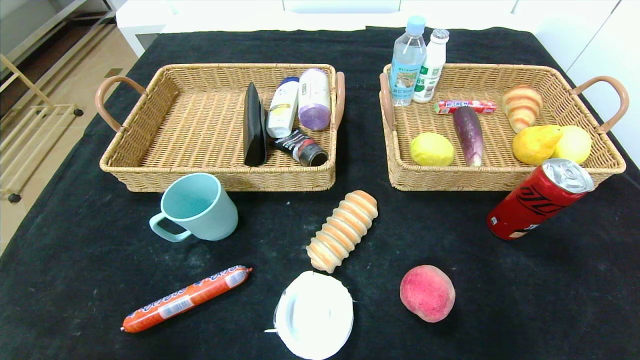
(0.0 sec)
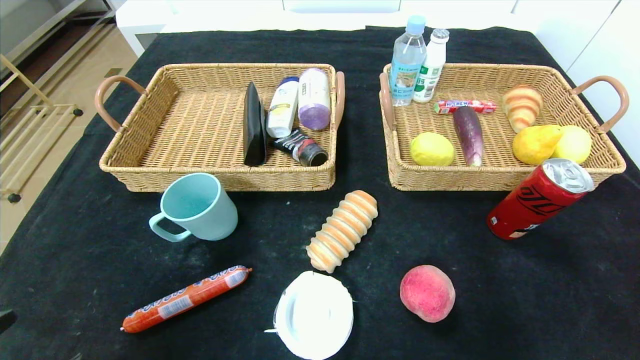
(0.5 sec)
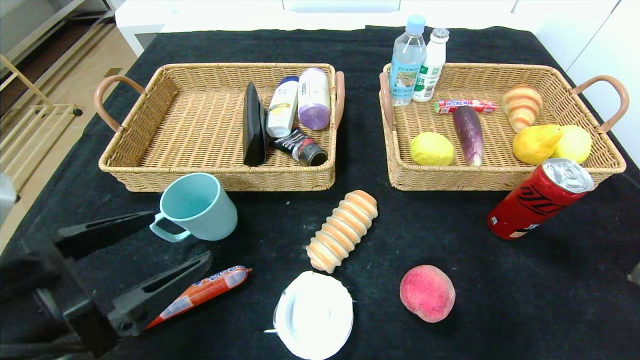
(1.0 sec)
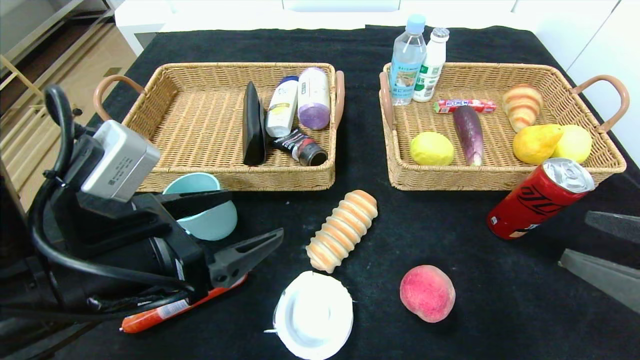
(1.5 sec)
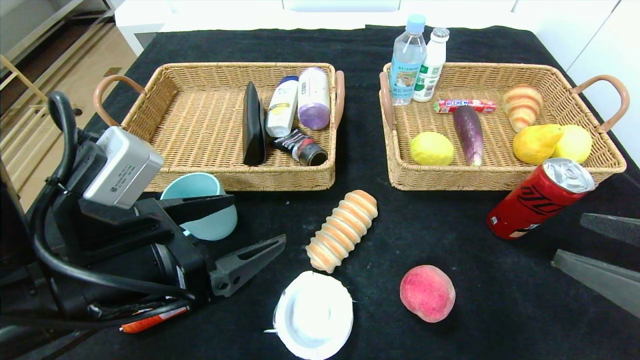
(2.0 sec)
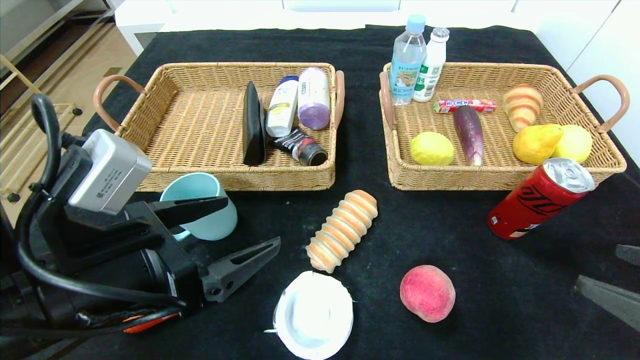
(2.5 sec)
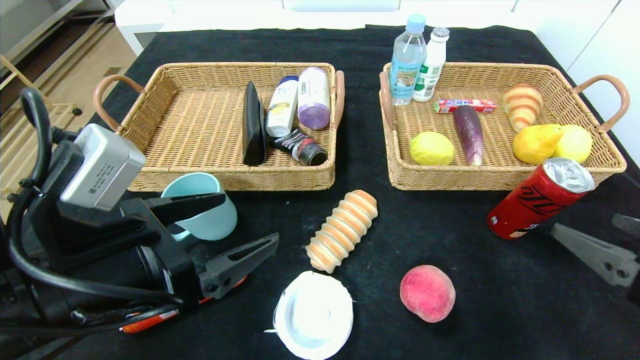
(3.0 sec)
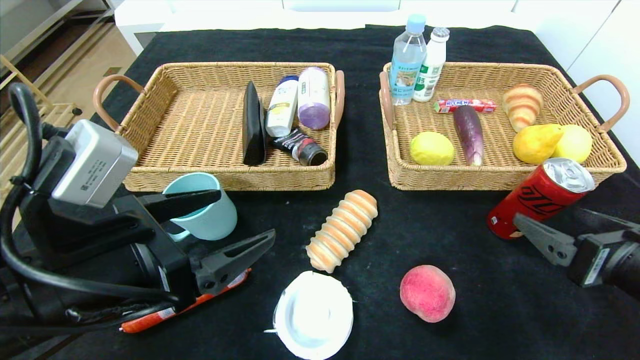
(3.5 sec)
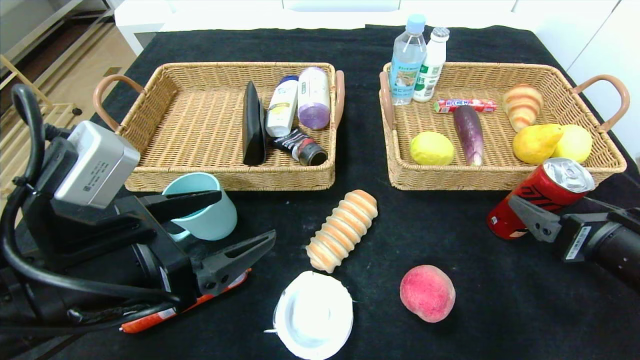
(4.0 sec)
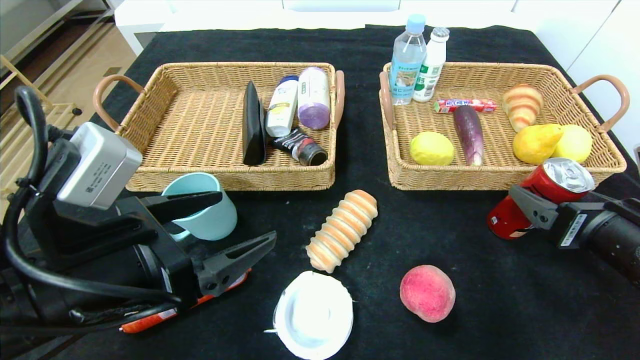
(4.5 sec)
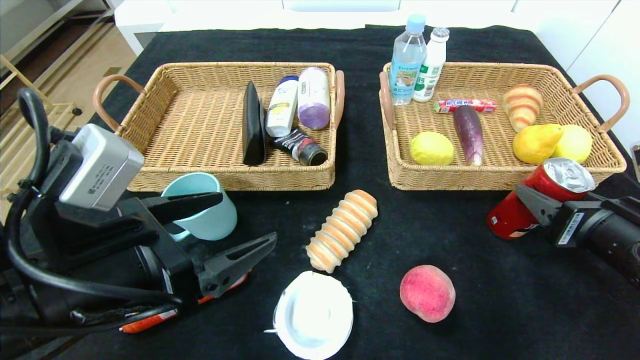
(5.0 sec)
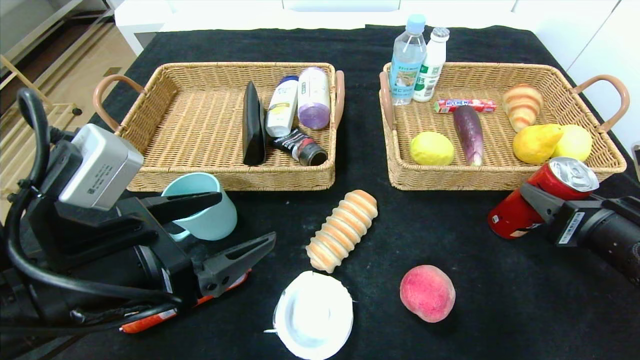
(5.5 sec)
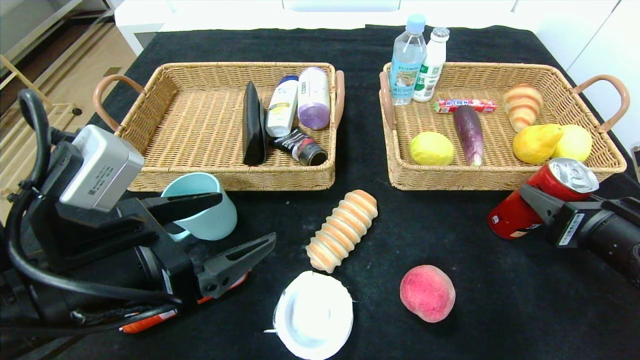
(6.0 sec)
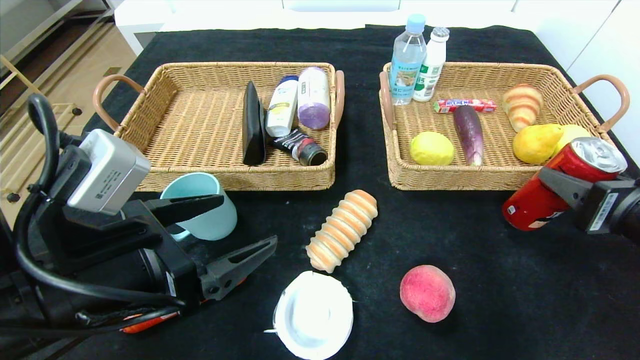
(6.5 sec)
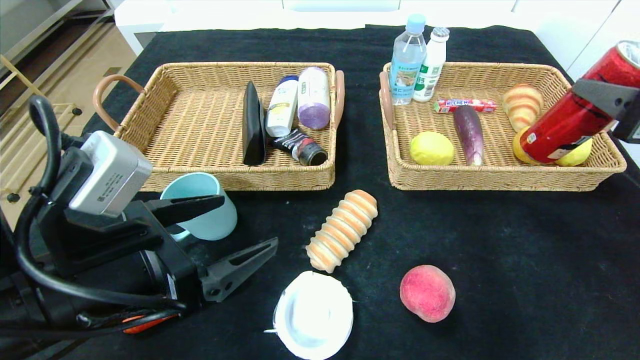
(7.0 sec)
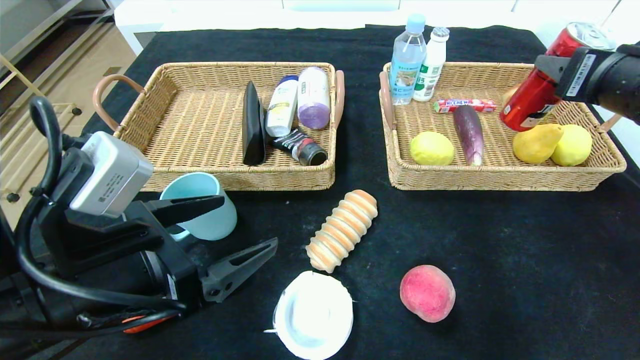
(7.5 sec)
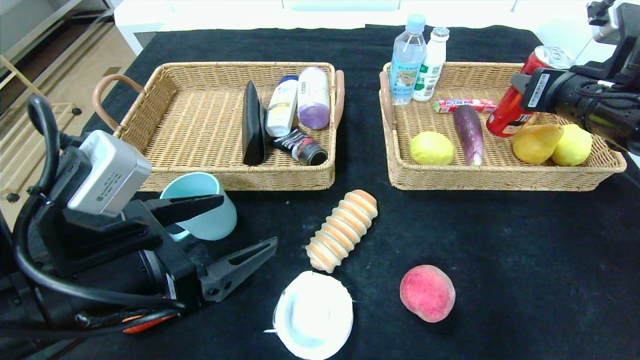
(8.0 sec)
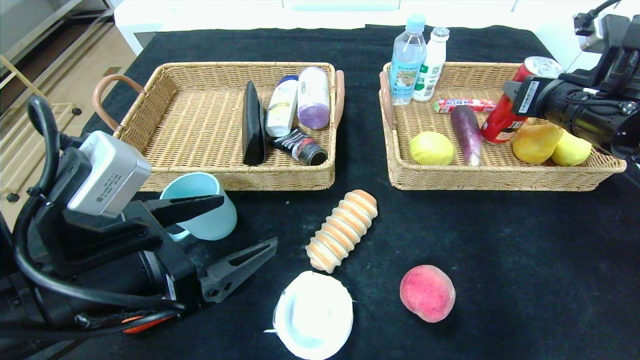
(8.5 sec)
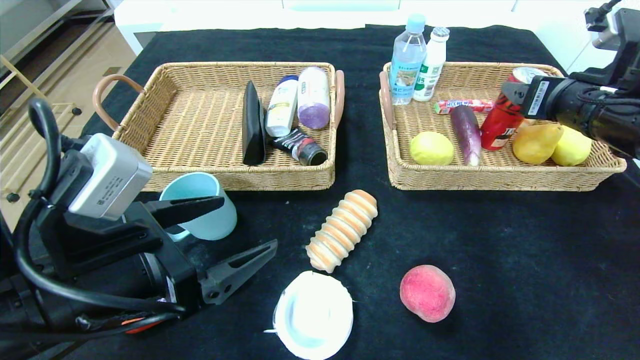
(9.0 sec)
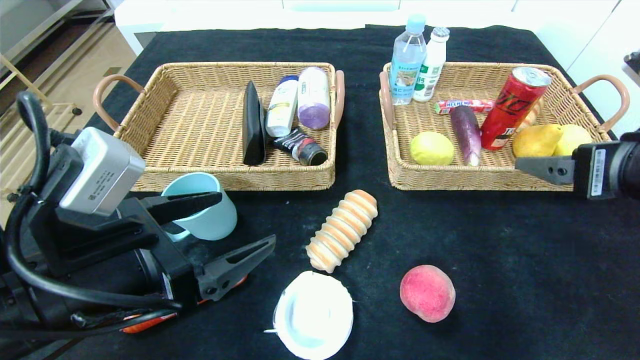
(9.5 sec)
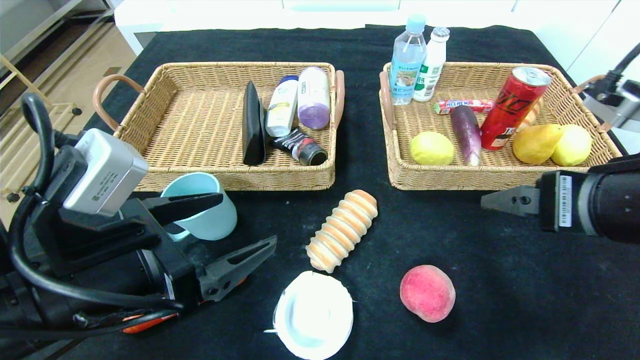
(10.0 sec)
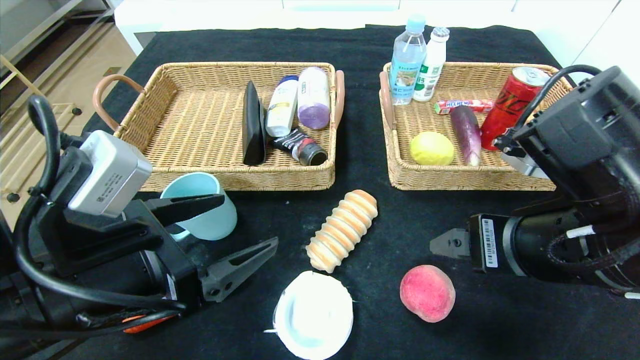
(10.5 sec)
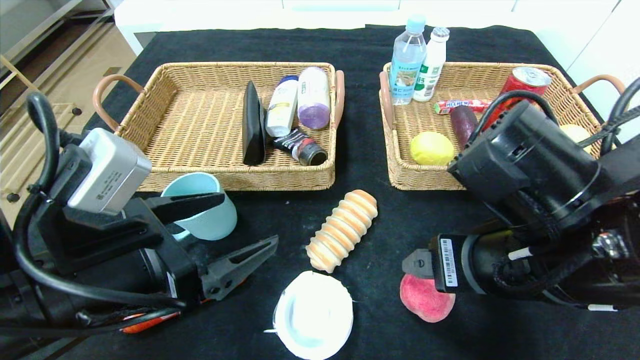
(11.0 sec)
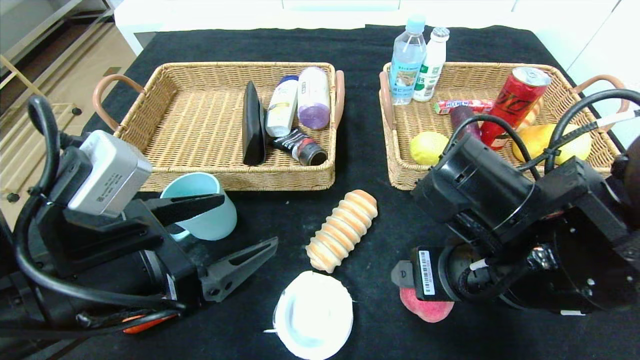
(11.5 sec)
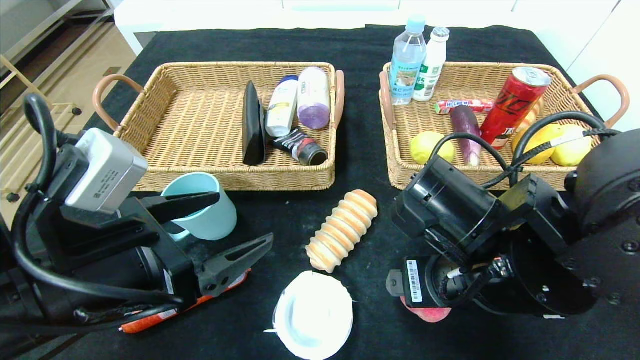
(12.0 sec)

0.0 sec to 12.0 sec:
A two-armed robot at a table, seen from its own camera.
Step, 0.0 sec to 10.0 sec: Pick up the canned cola and put it in the right basket.
0.0 sec to 2.0 sec: The right gripper shifts some 20 cm upward and forward, while the left gripper moves forward, upward and to the right, roughly 25 cm.
2.0 sec to 4.0 sec: The right gripper goes about 5 cm forward.
4.0 sec to 6.0 sec: The right gripper closes its fingers.
6.0 sec to 8.0 sec: The right gripper travels forward and upward by some 15 cm.
8.0 sec to 10.0 sec: The right gripper is displaced backward and to the left by about 15 cm, and opens.
10.0 sec to 12.0 sec: The right gripper heads to the left and downward, covering about 15 cm.

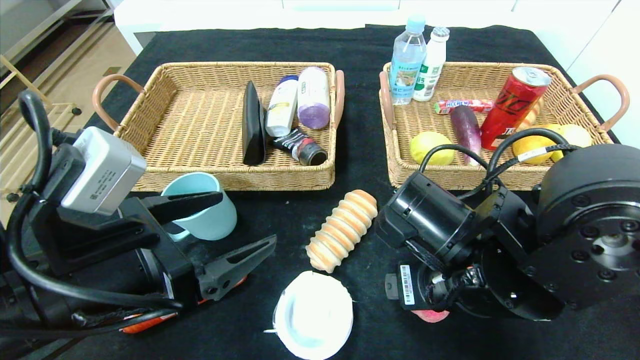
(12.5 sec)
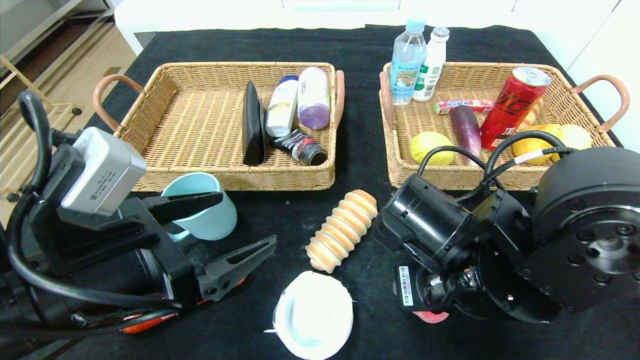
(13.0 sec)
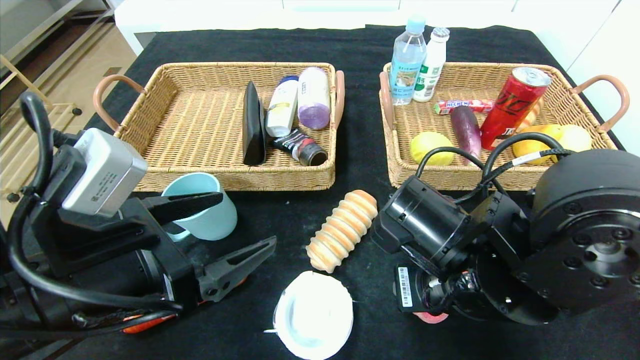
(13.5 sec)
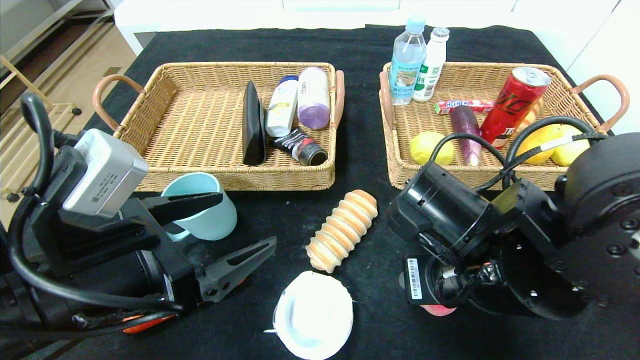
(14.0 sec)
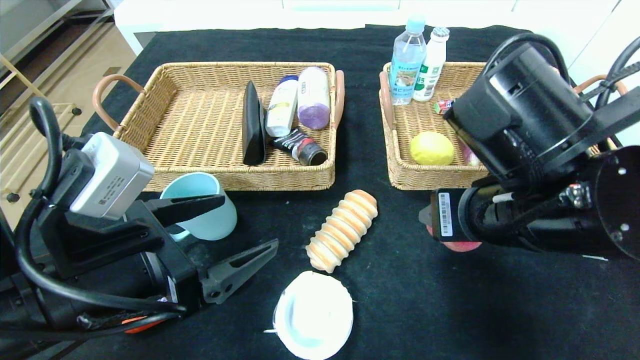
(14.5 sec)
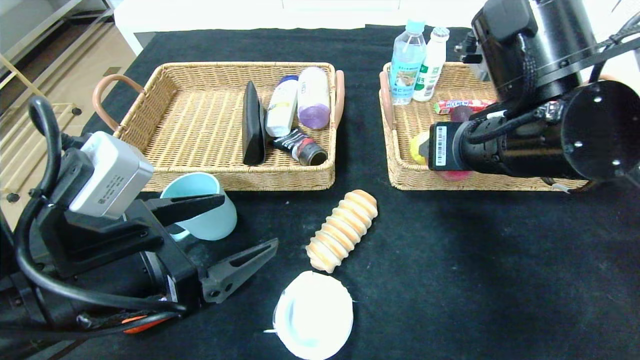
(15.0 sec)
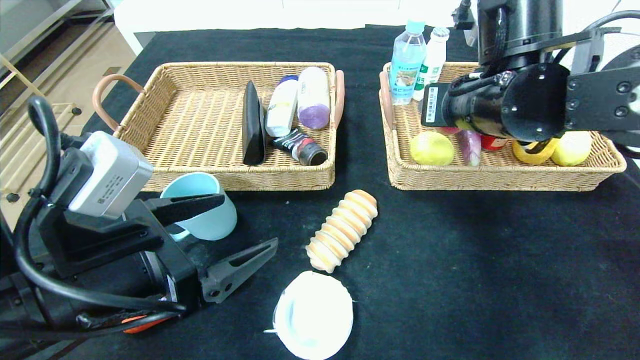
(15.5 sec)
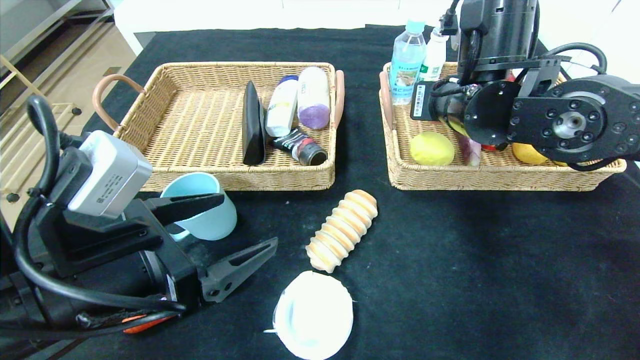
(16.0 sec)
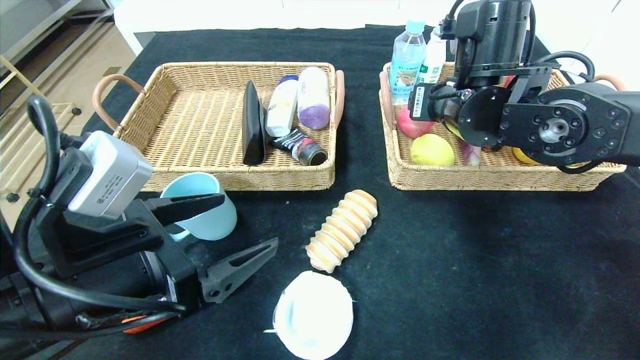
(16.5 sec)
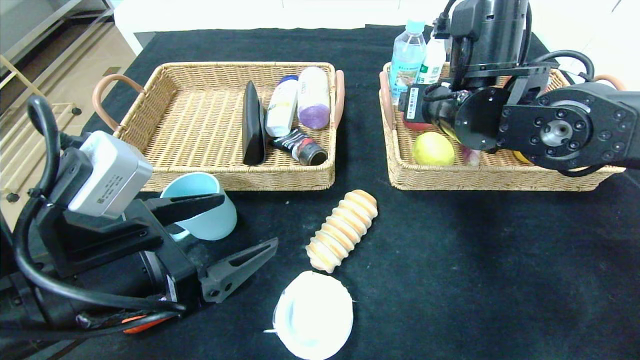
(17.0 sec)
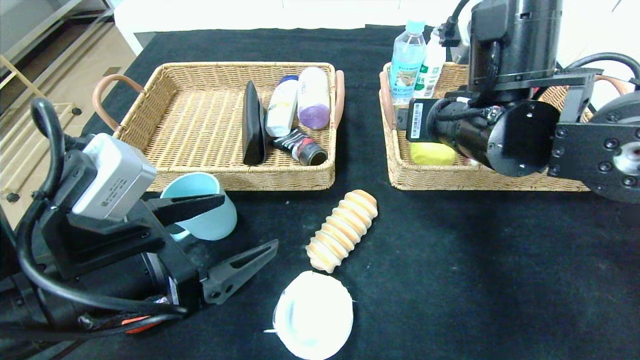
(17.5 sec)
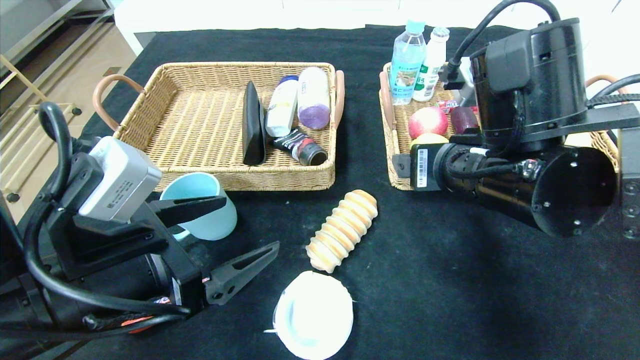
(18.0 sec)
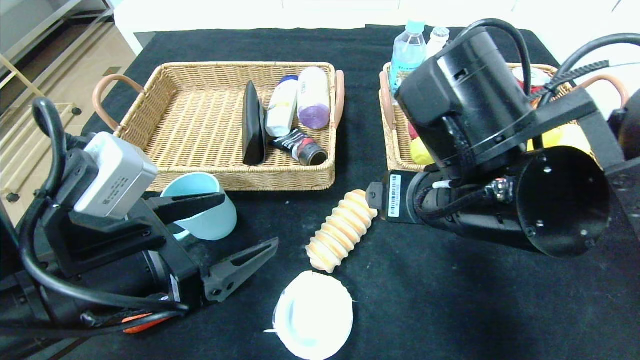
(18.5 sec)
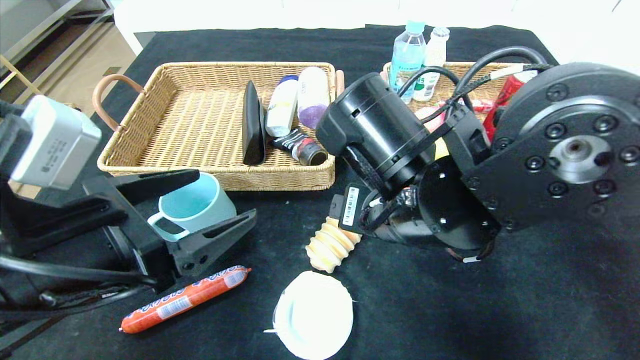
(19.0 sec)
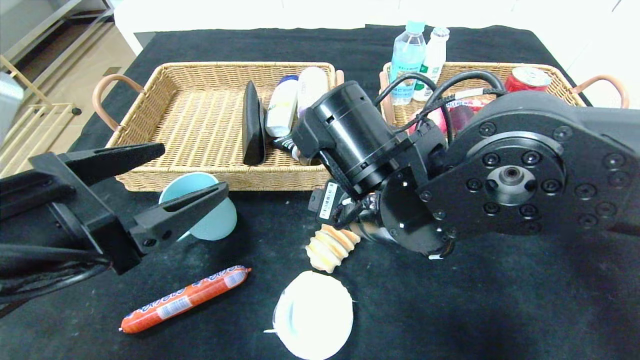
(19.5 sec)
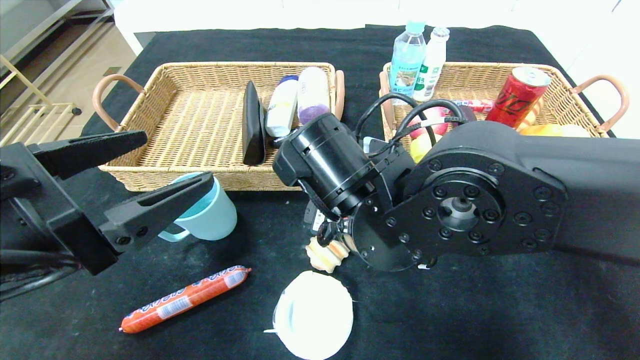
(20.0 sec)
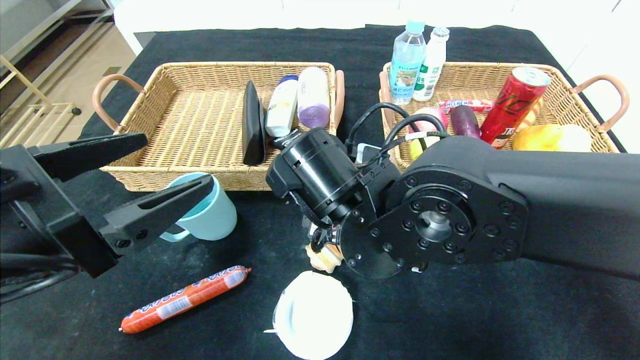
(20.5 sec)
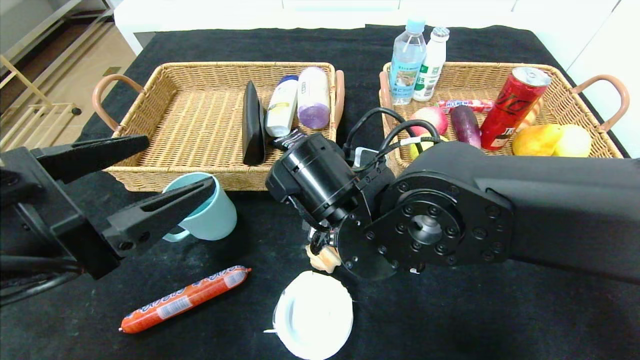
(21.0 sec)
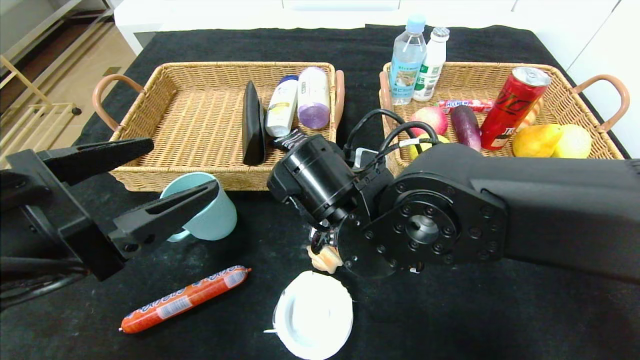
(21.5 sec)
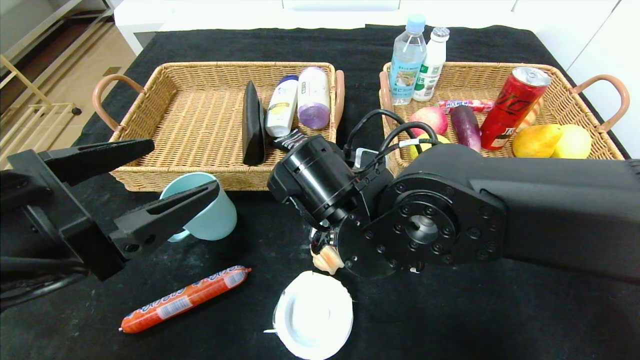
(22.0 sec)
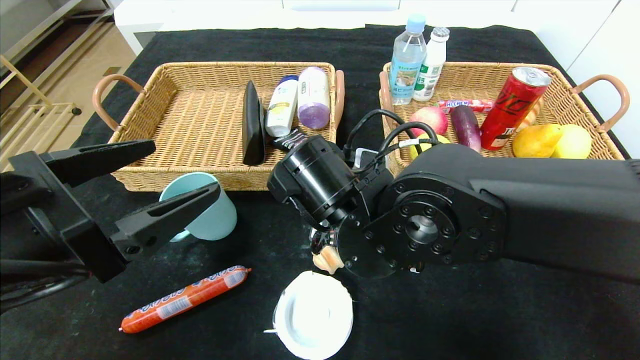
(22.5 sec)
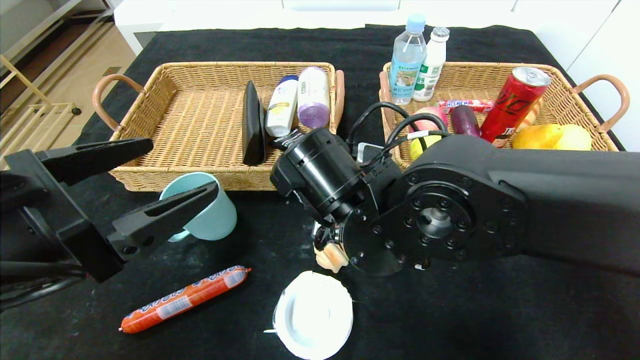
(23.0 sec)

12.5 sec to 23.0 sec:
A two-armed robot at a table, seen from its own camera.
Step, 12.5 sec to 18.0 sec: Pick up the peach and put it in the right basket.
12.5 sec to 14.5 sec: The right gripper travels upward by some 5 cm, and closes its fingers.
14.5 sec to 16.5 sec: The right gripper travels forward by some 15 cm.
16.5 sec to 19.0 sec: The right gripper goes approximately 15 cm backward and to the left.
19.0 sec to 21.0 sec: The right gripper ends up about 5 cm from where it was.
21.0 sec to 23.0 sec: The right gripper closes its fingers.
